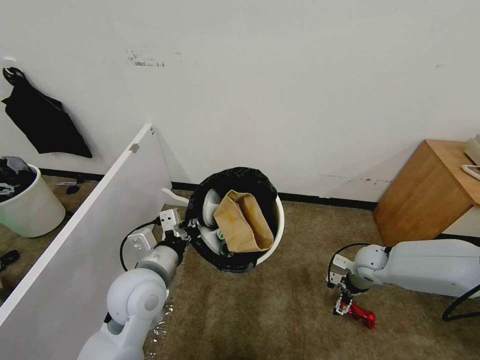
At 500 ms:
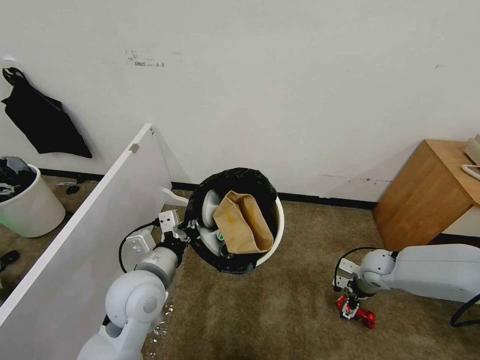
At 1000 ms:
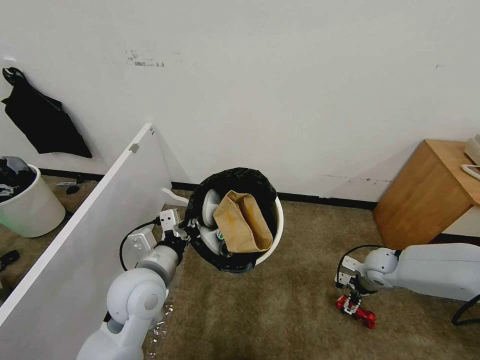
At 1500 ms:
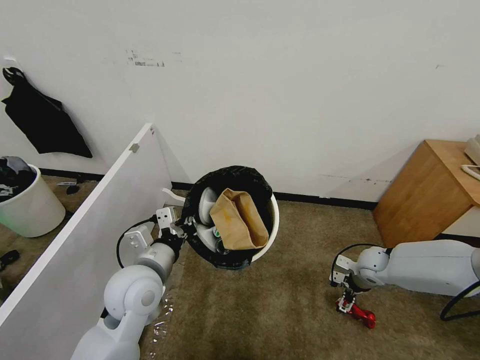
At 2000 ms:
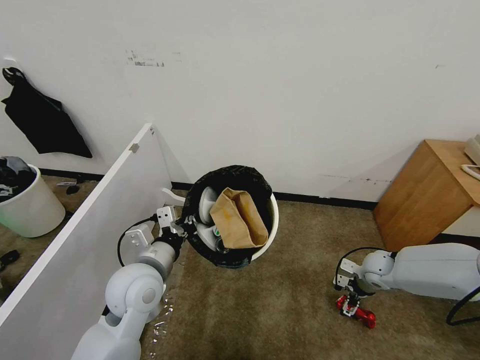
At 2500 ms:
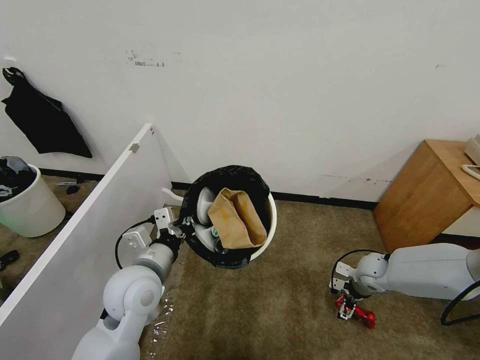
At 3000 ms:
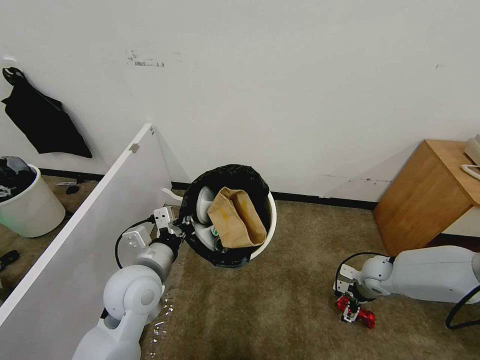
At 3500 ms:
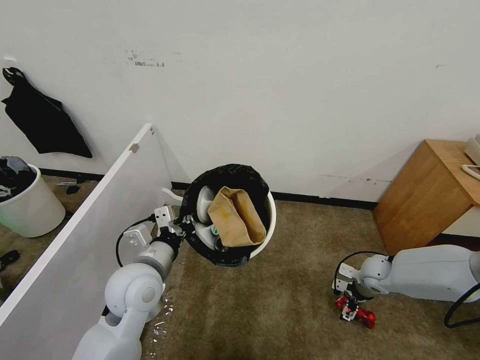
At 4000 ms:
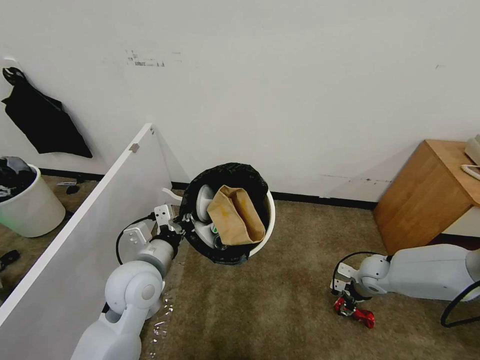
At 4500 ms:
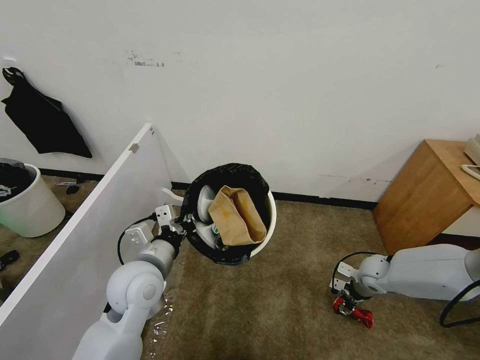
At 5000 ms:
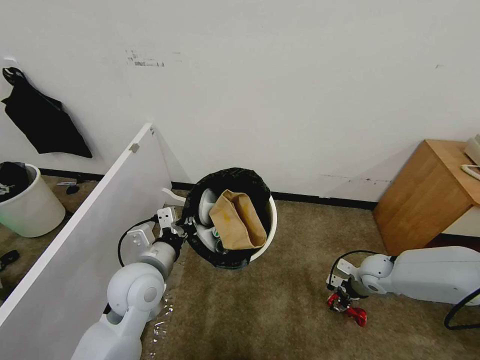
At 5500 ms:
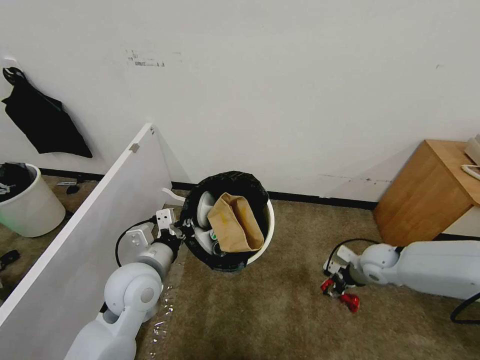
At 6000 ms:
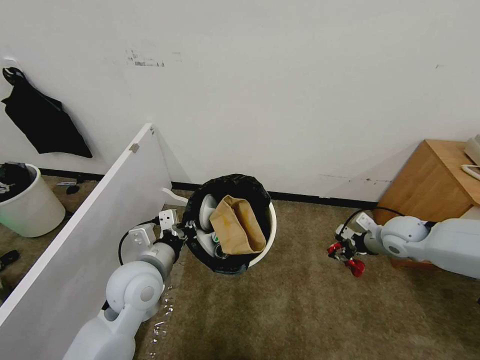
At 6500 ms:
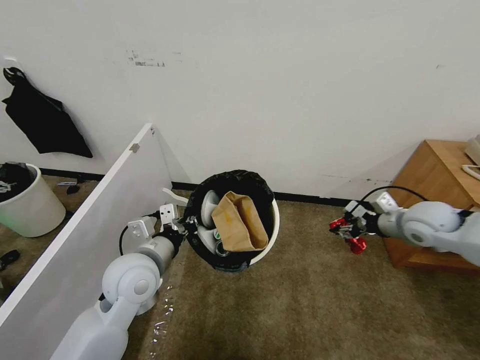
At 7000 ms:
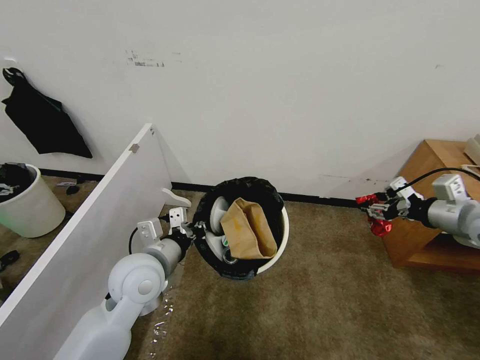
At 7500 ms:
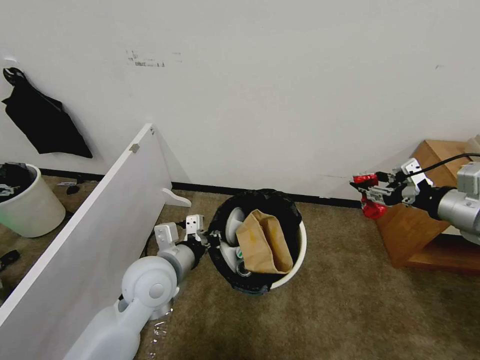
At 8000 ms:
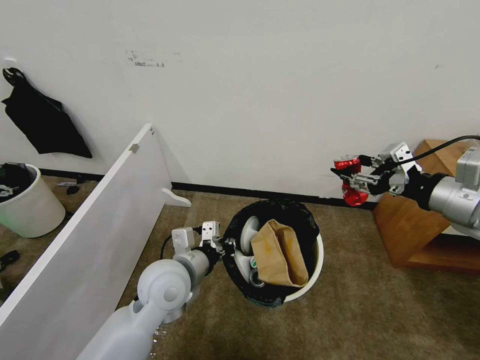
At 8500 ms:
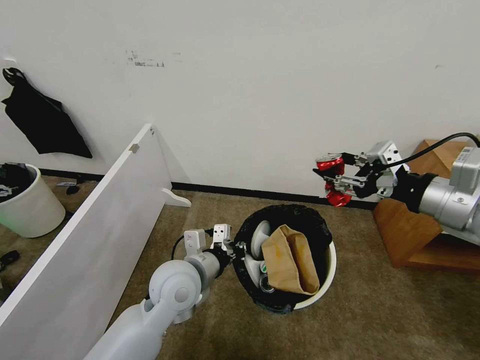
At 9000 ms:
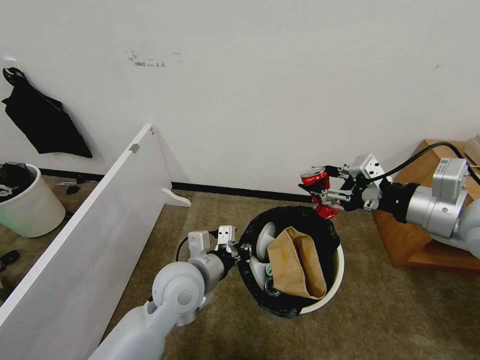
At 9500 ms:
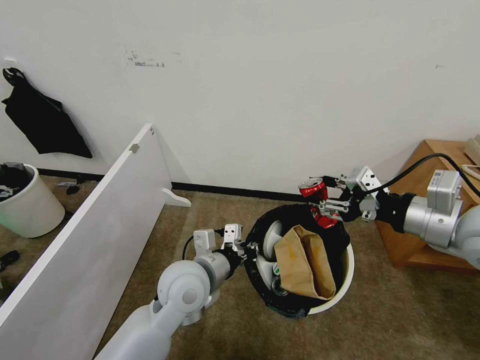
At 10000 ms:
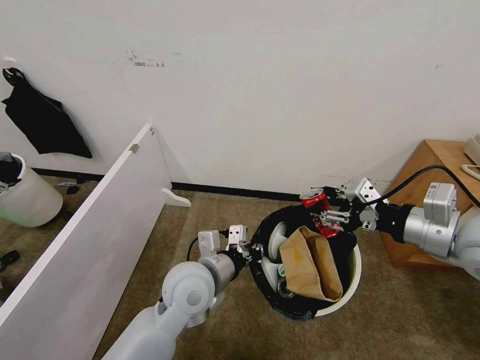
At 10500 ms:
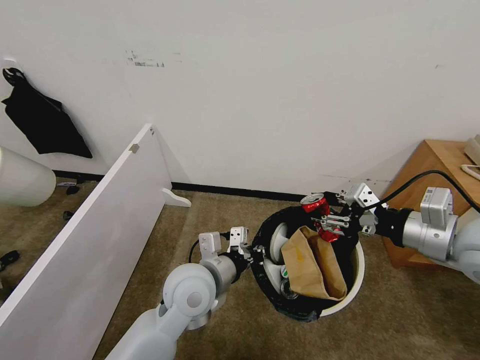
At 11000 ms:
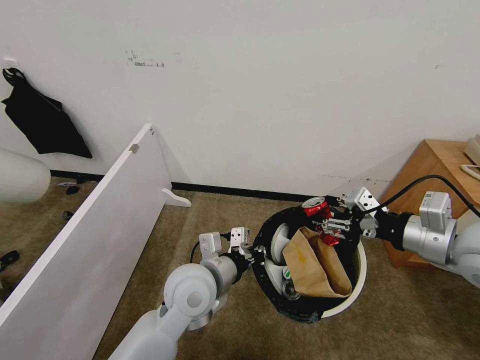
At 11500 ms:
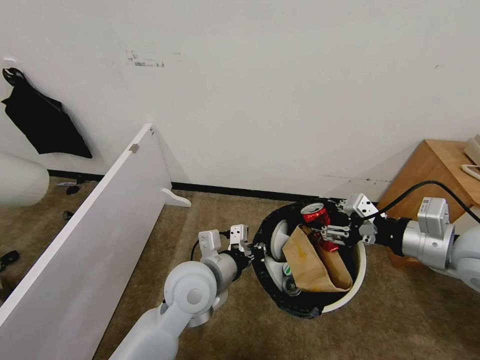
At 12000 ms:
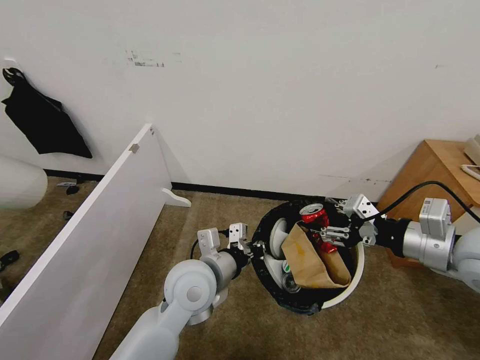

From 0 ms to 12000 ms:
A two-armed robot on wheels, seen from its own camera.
Task of the whole recording: Pick up the trash bin, then pick up the garbage from the floor and place it into the trash bin.
From 0 ms to 2000 ms: The grippers stay close to where they were, moving slightly.
From 2000 ms to 4000 ms: The right gripper closes its fingers.
From 4000 ms to 6000 ms: The right gripper goes some 15 cm upward.
From 6000 ms to 8000 ms: The right gripper heads upward and backward, covering roughly 25 cm; the left gripper is displaced to the right by some 5 cm.
From 8000 ms to 10000 ms: The right gripper moves roughly 5 cm.
From 10000 ms to 12000 ms: There are only small adjustments of the grippers.

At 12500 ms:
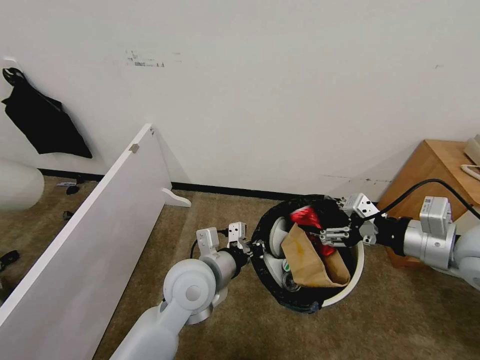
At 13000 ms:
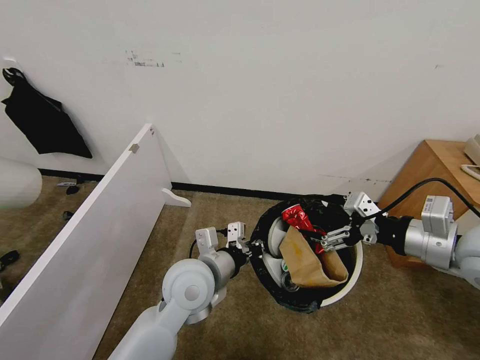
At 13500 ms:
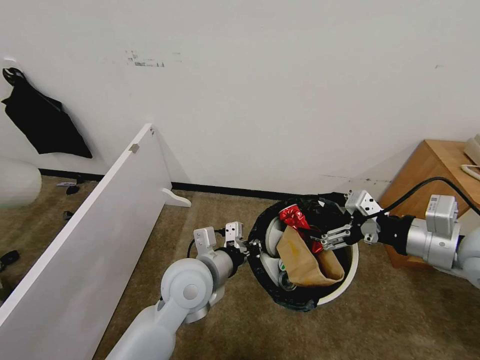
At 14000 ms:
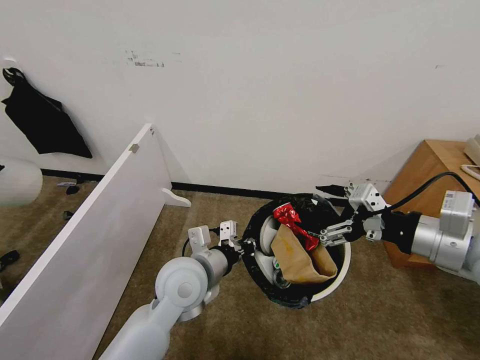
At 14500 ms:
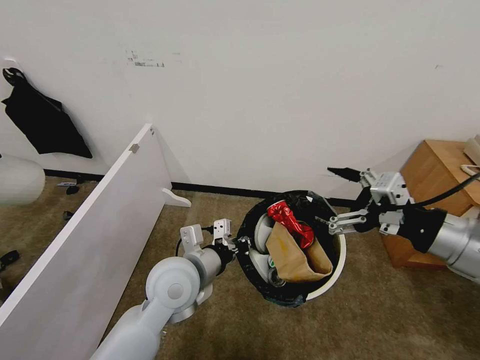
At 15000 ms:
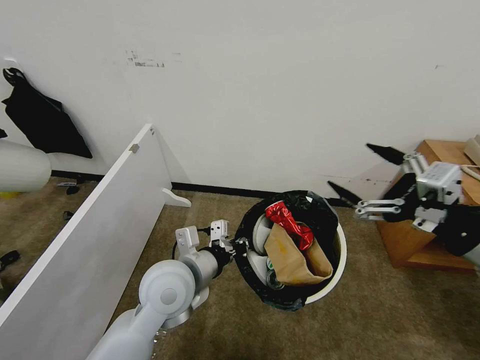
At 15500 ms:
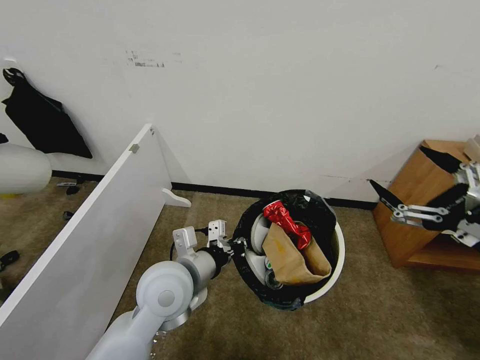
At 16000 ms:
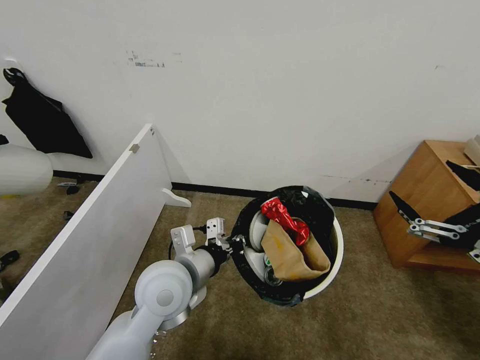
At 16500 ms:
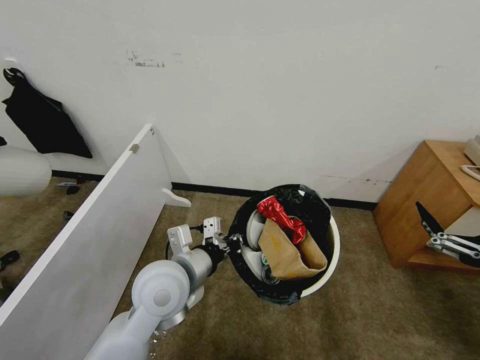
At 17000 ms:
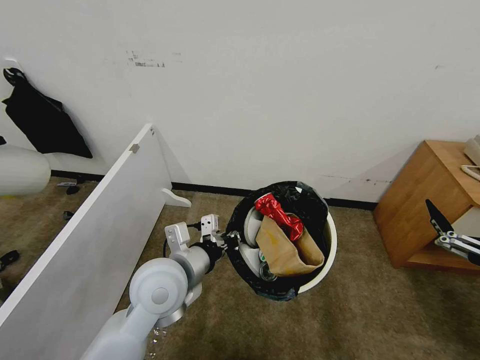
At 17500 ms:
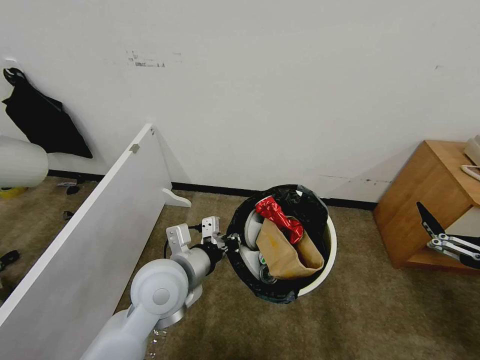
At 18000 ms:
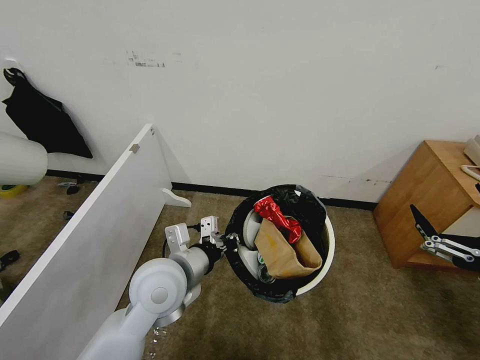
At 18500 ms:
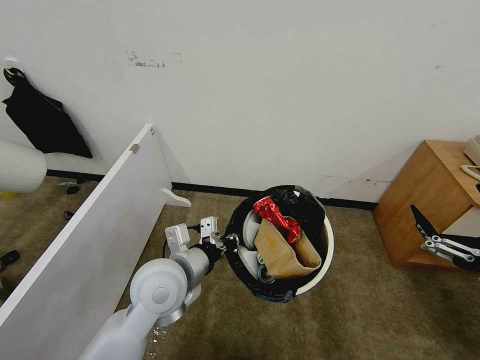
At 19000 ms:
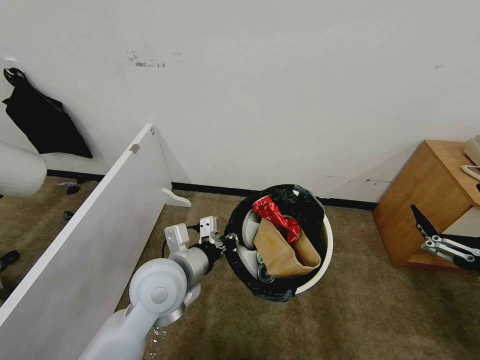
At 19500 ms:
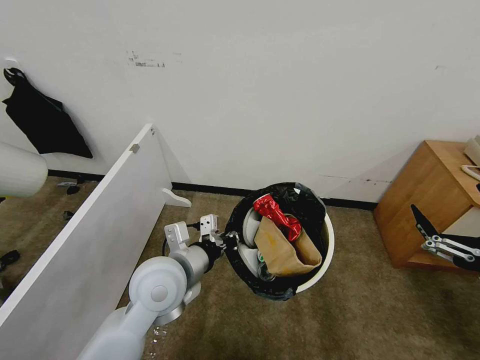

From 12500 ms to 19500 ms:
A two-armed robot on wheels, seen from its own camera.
Task of the whole recording: Pick up the trash bin, then pick up the garbage from the floor and place it into the trash bin.
From 12500 ms to 14500 ms: The grippers stay close to where they were, moving slightly.
From 14500 ms to 16000 ms: The right gripper is displaced backward and to the right by roughly 10 cm.
From 16000 ms to 17500 ms: The grippers move only a little.
From 17500 ms to 19500 ms: The two grippers keep their place.
